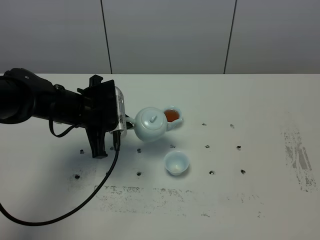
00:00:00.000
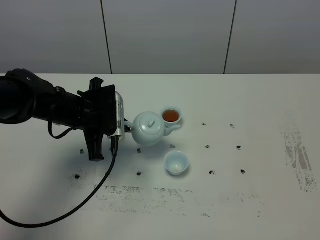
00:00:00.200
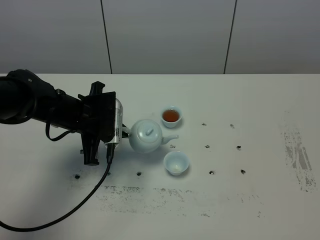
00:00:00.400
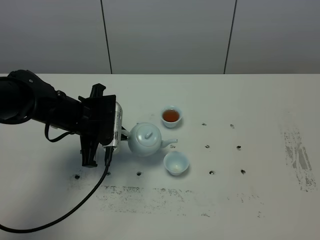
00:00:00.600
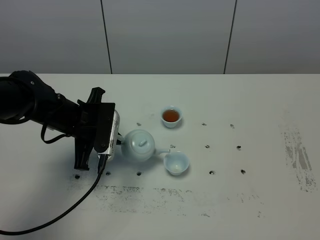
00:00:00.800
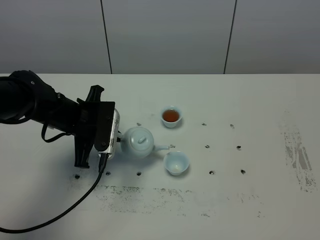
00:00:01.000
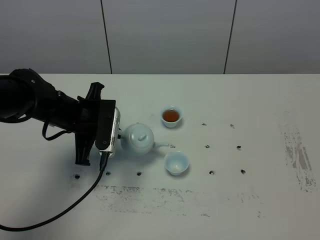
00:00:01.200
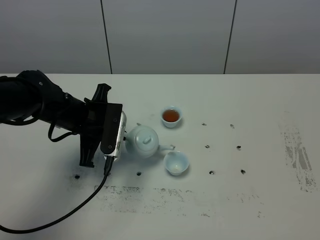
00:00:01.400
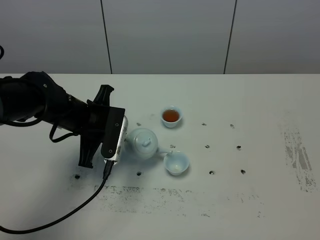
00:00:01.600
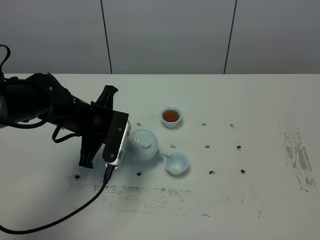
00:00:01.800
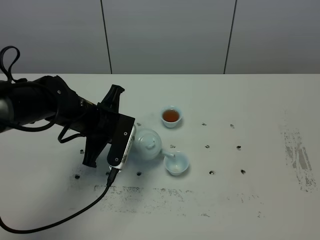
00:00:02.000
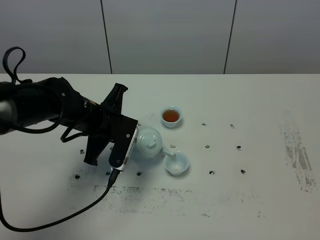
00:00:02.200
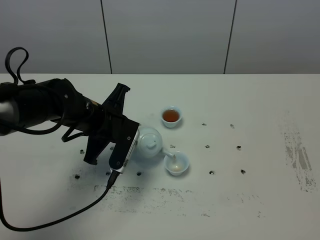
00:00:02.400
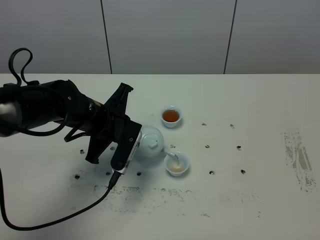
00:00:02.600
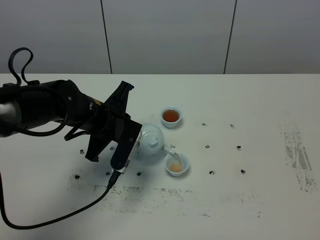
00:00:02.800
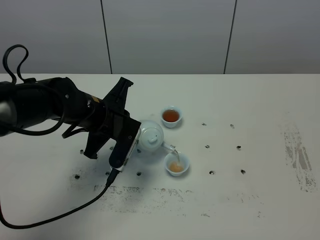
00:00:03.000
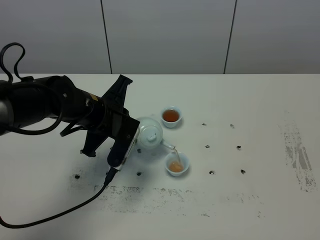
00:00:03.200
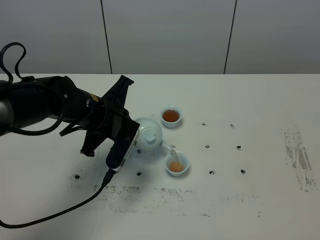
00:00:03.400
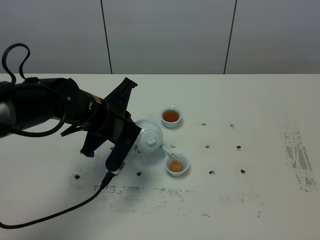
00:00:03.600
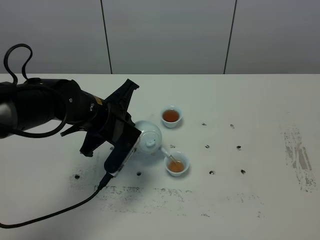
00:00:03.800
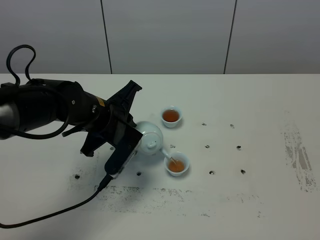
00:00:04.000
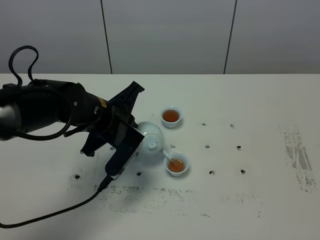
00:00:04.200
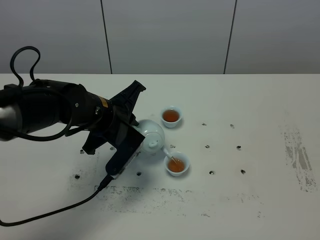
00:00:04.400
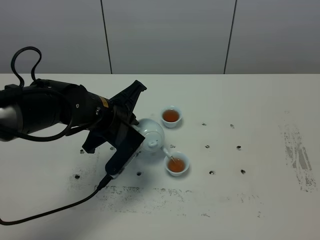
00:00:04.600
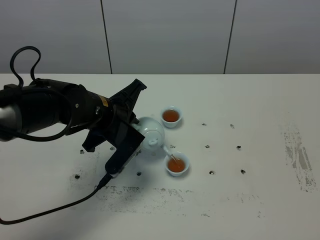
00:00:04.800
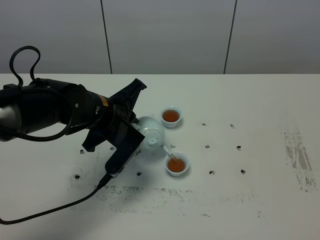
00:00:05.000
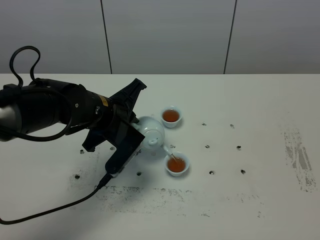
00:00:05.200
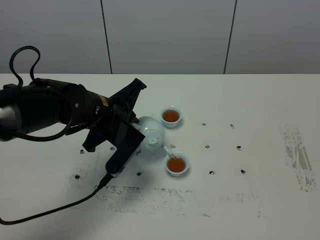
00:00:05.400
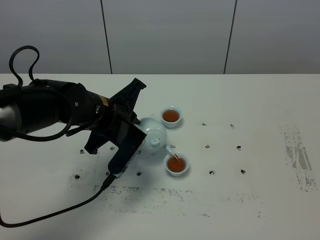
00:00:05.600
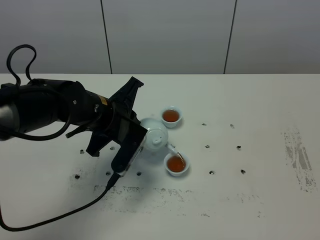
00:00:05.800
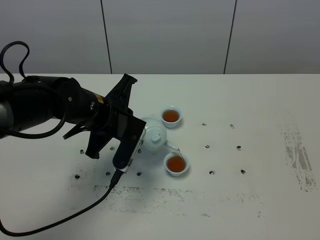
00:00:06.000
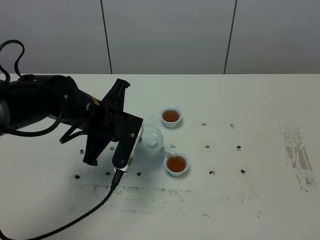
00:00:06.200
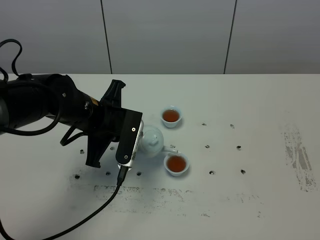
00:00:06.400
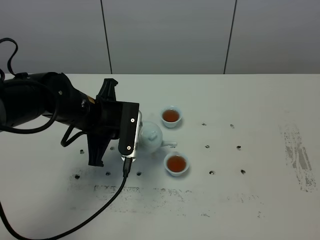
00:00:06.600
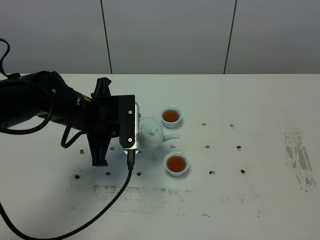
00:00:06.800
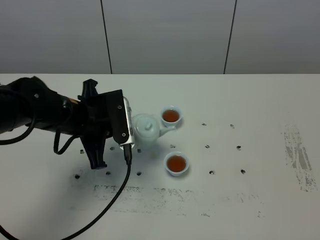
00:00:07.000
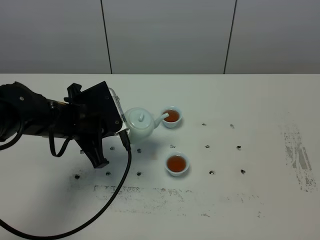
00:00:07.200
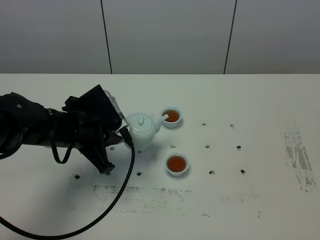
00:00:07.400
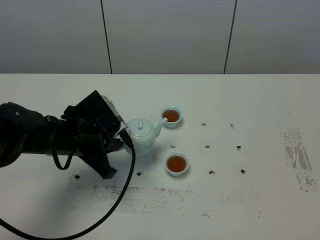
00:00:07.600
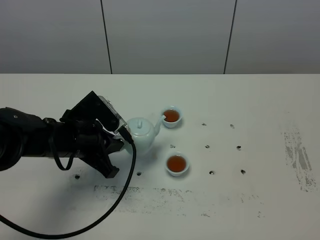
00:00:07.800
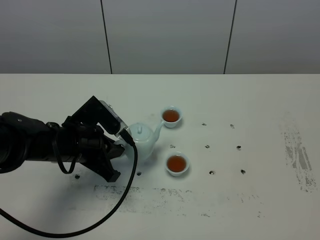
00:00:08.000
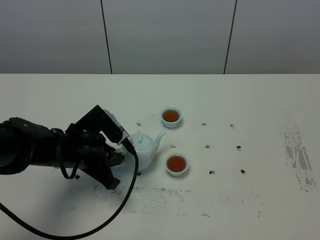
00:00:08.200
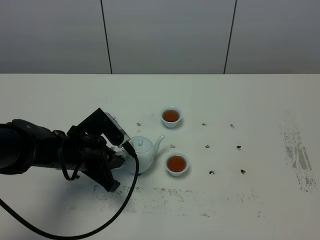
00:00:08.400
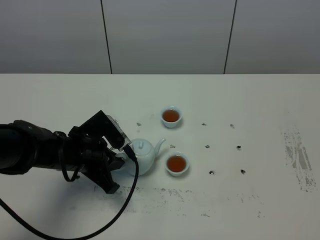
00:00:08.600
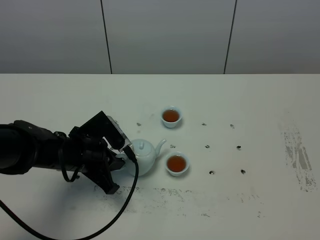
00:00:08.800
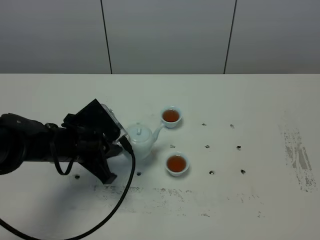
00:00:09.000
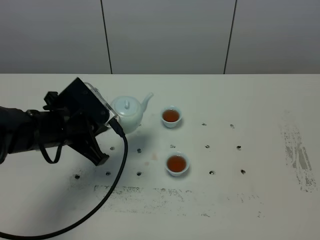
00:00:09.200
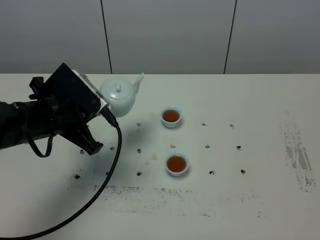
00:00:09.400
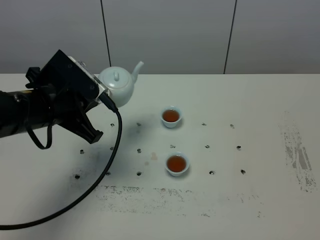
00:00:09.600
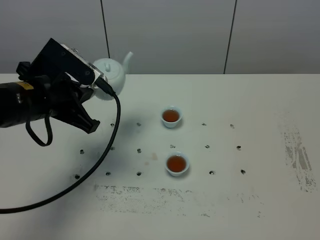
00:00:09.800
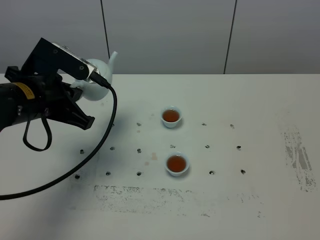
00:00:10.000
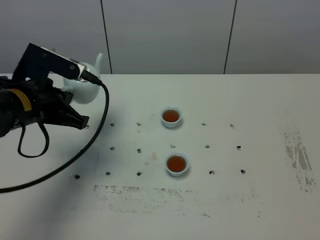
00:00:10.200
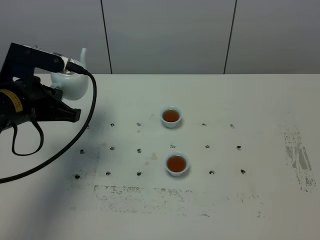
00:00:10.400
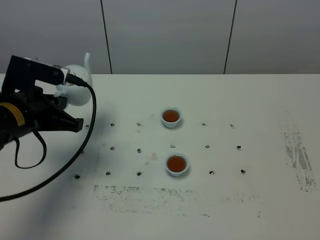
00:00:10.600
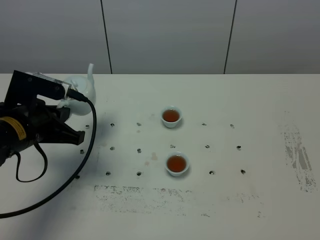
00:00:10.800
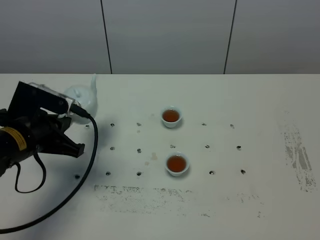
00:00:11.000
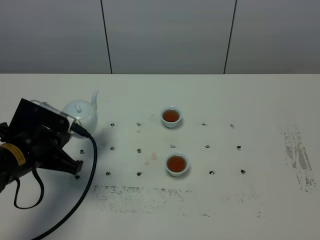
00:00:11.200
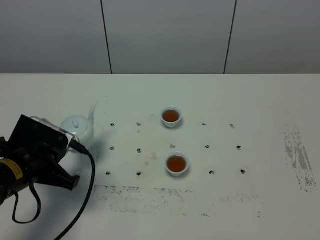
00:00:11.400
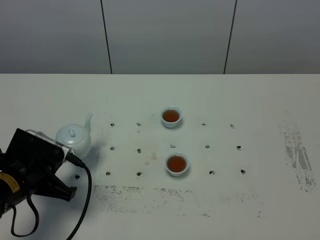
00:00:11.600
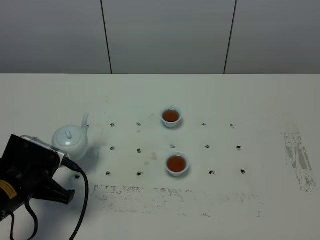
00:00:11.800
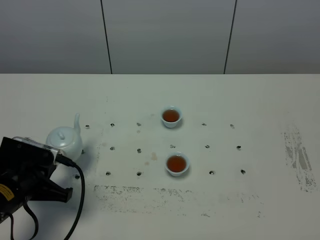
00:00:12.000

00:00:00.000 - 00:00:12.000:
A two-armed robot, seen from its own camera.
Task of the whole recording: grasp the blue porcelain teapot and pour the tea into the two blue porcelain teacups one by one, put the blue porcelain teapot back in its original place.
Step, 00:00:00.000 - 00:00:06.400: Pour tea into the teacup with the left gripper.
00:00:03.000 - 00:00:06.000: The grippers move only a little.
00:00:06.000 - 00:00:07.600: The left gripper is displaced to the left by roughly 5 cm.
00:00:07.600 - 00:00:09.000: There are only small adjustments of the grippers.
00:00:09.000 - 00:00:10.400: The left gripper is displaced upward by some 10 cm.
00:00:10.400 - 00:00:12.000: The left gripper travels downward and backward by about 15 cm.

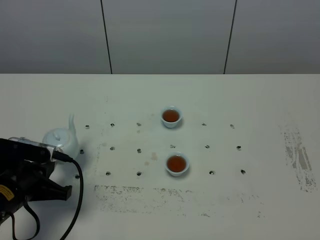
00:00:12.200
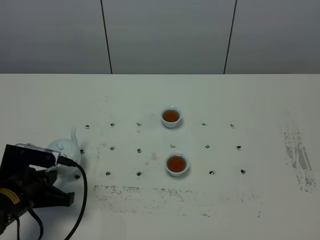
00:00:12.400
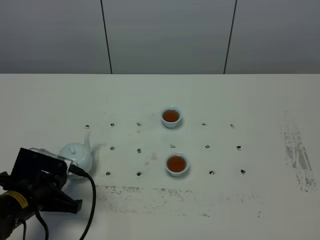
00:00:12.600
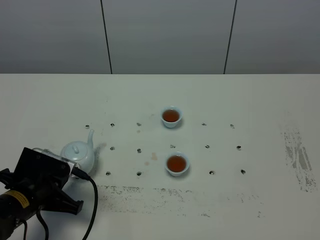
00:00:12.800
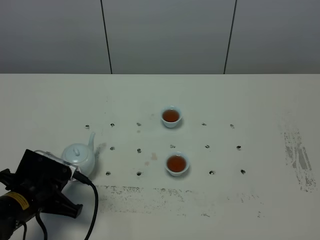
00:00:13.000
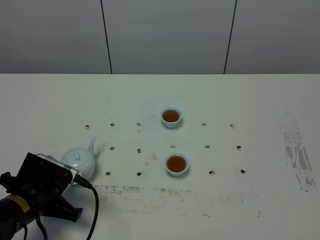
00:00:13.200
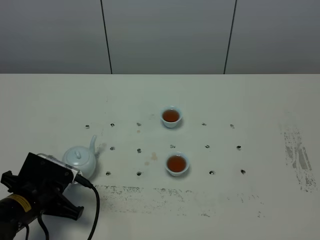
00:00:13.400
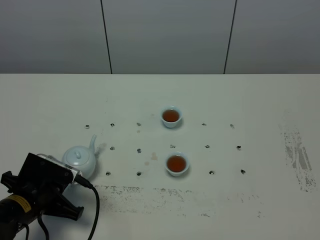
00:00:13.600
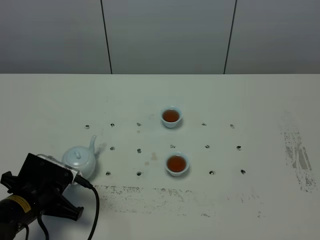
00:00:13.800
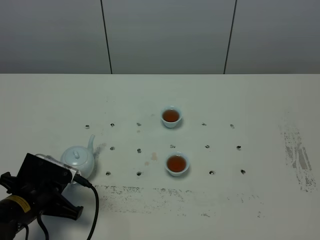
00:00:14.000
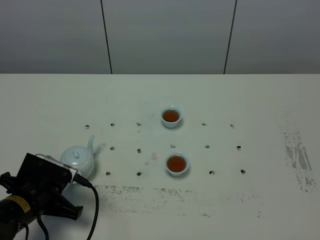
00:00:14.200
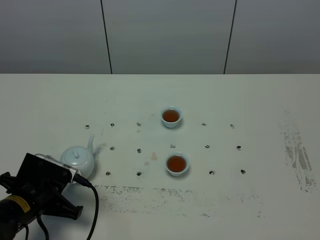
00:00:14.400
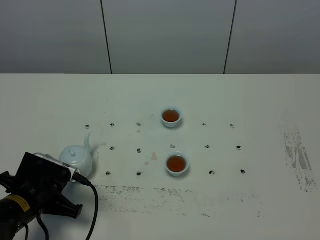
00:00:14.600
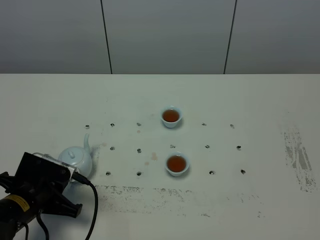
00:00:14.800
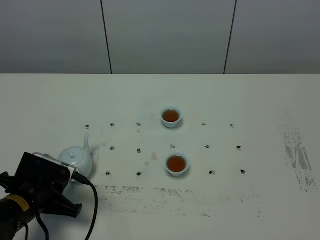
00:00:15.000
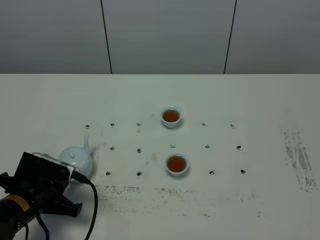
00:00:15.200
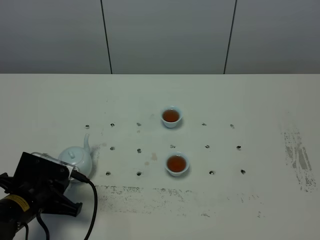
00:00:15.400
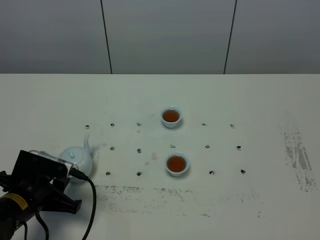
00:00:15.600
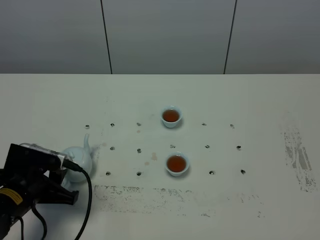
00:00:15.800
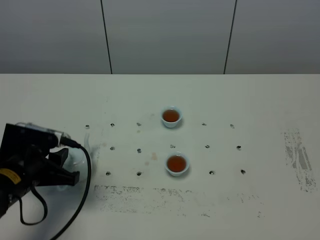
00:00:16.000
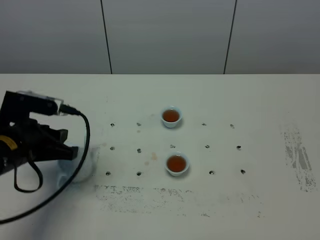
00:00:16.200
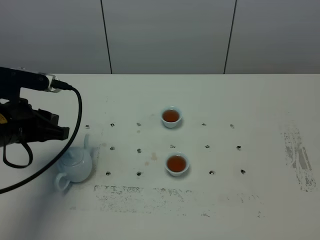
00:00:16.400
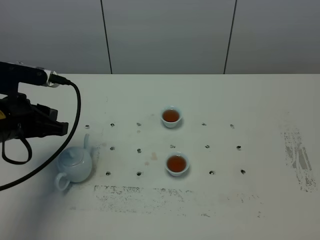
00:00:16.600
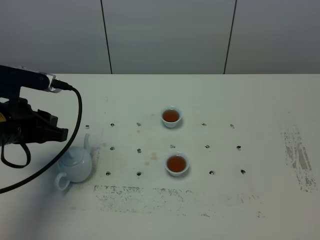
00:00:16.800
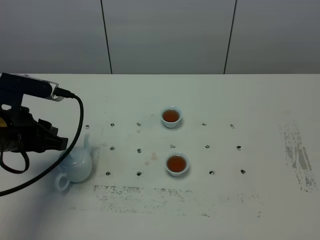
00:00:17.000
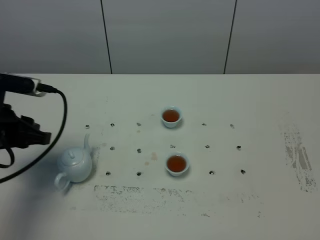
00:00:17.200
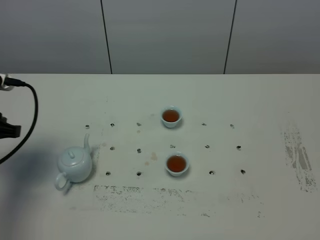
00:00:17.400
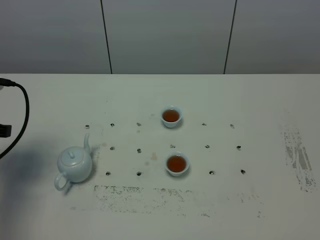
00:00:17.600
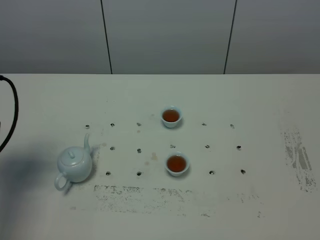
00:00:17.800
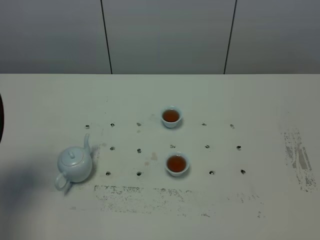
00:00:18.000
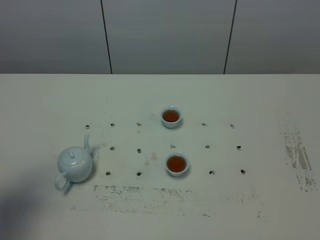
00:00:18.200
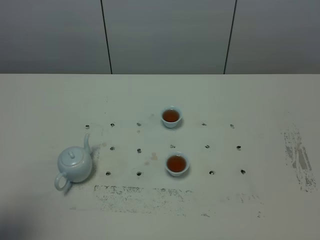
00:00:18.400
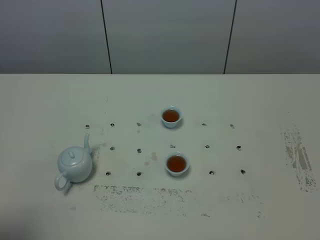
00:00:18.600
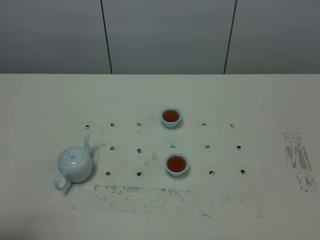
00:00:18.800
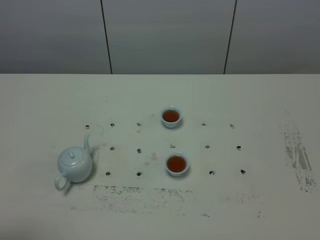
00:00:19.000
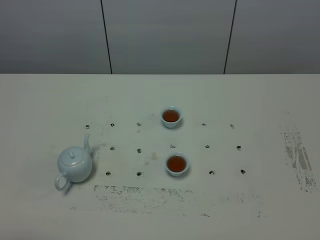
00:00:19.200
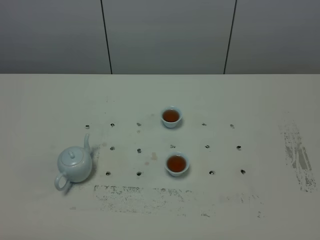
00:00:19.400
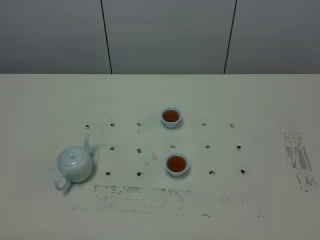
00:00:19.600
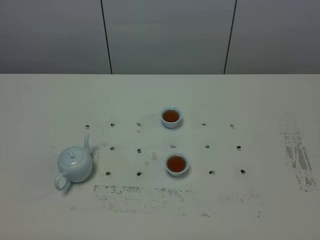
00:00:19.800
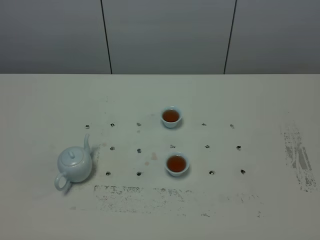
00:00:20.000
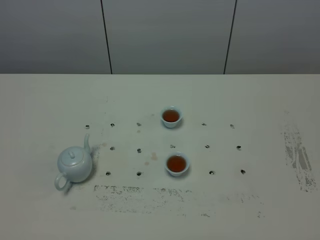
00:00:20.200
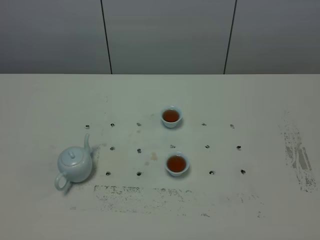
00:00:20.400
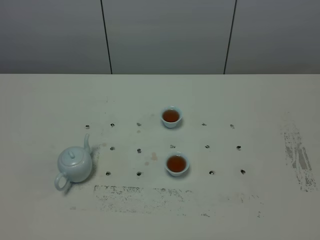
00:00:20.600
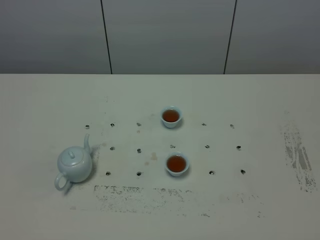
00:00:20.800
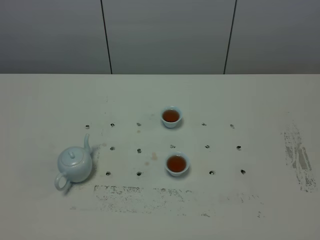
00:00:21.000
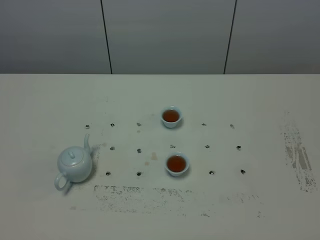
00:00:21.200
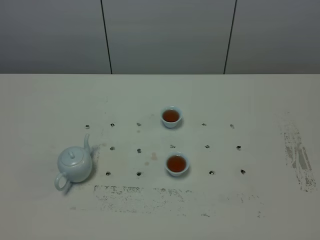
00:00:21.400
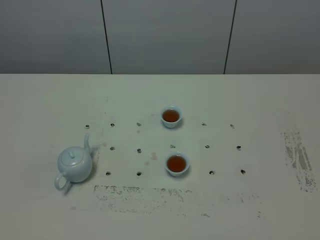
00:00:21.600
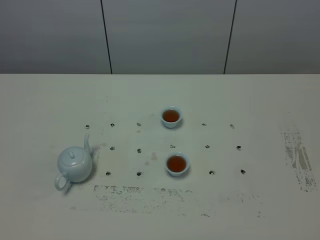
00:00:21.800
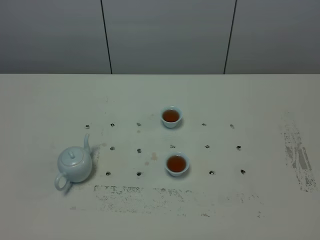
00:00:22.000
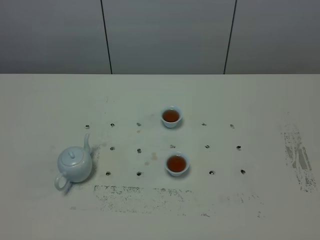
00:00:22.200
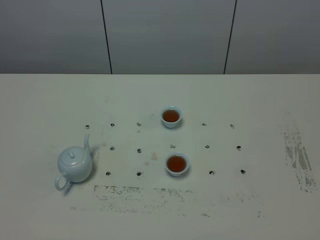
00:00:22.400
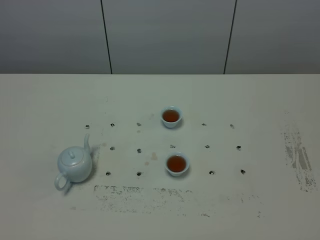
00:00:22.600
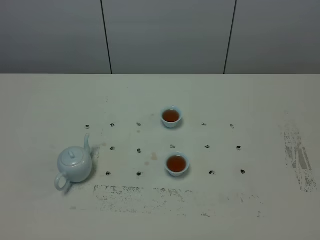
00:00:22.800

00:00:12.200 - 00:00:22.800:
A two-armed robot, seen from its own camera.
Task of the whole recording: grasp the blue porcelain teapot and pour the tea into the two blue porcelain teacups one by one, put the blue porcelain teapot back in its original place.
00:00:12.200 - 00:00:13.800: The grippers stay close to where they were, moving slightly.
00:00:13.800 - 00:00:15.200: Both grippers stay put.
00:00:15.200 - 00:00:16.800: The left gripper is displaced upward and forward by roughly 15 cm.
00:00:16.800 - 00:00:18.200: The left gripper heads backward, upward and to the left, covering some 15 cm.
00:00:18.200 - 00:00:19.800: The left gripper is displaced backward by approximately 15 cm.
00:00:21.200 - 00:00:22.800: The two grippers keep their place.
